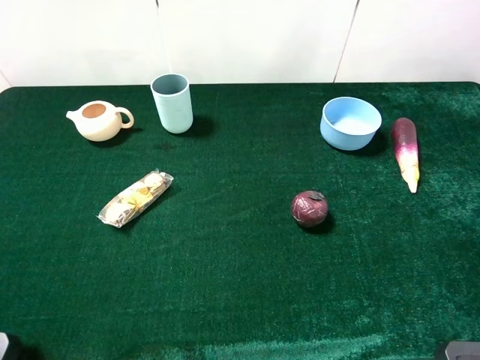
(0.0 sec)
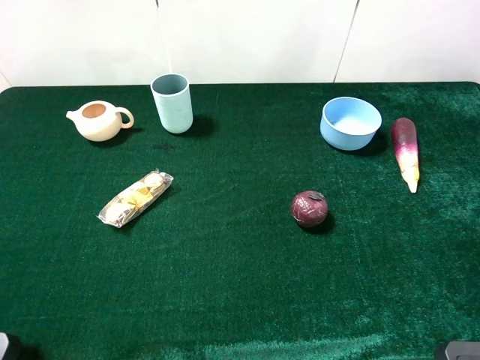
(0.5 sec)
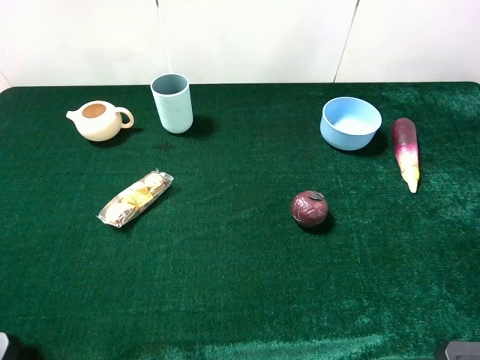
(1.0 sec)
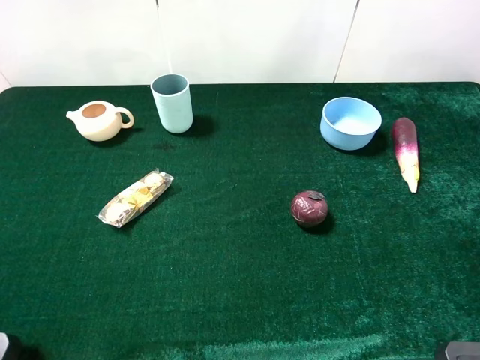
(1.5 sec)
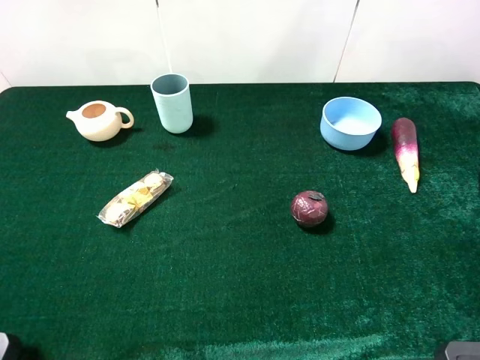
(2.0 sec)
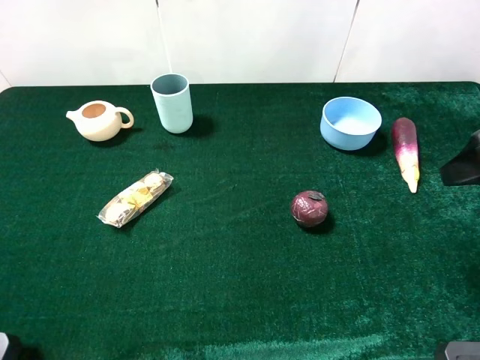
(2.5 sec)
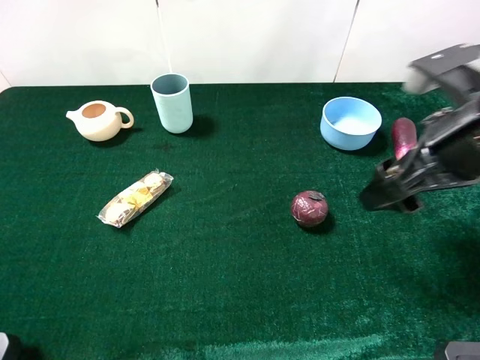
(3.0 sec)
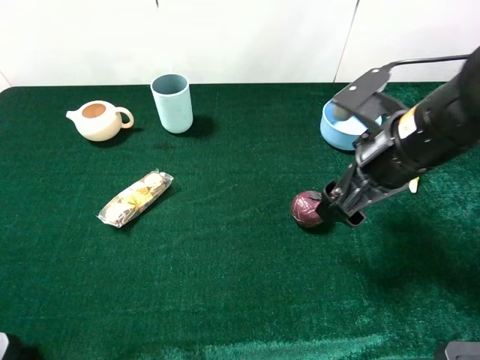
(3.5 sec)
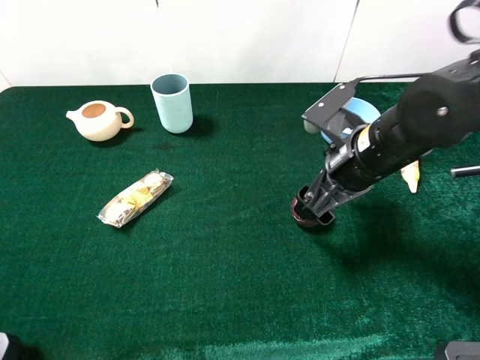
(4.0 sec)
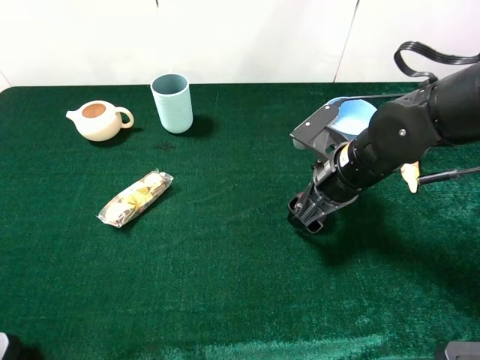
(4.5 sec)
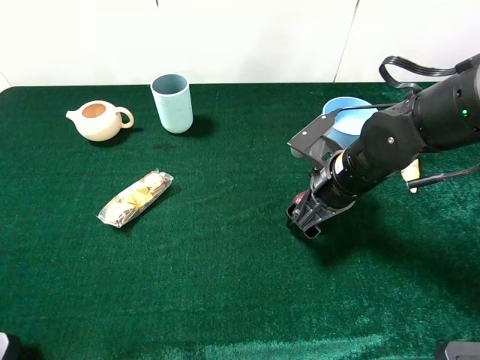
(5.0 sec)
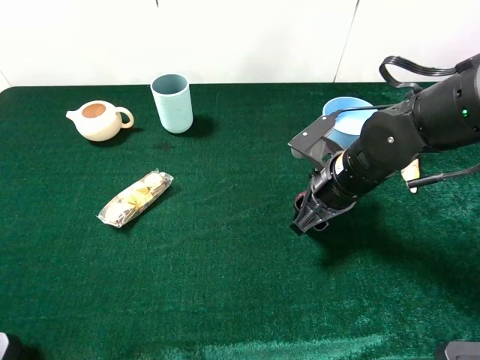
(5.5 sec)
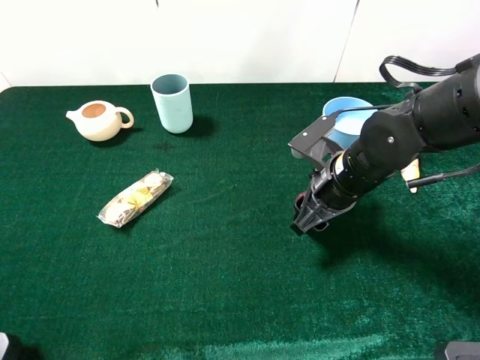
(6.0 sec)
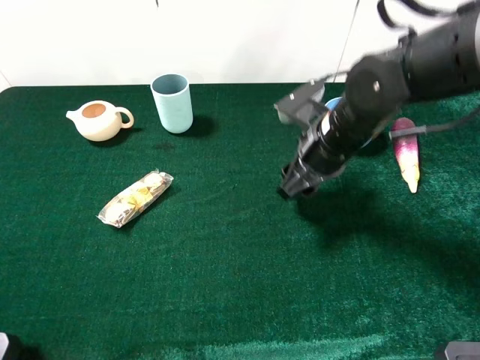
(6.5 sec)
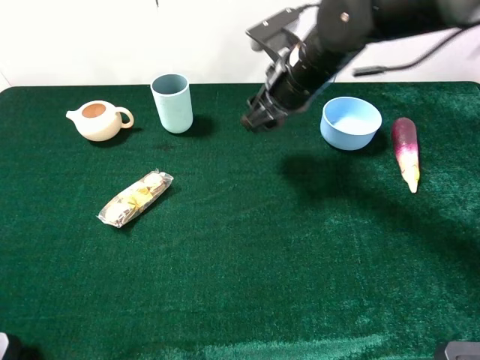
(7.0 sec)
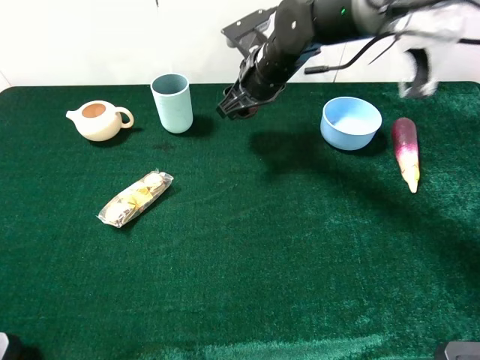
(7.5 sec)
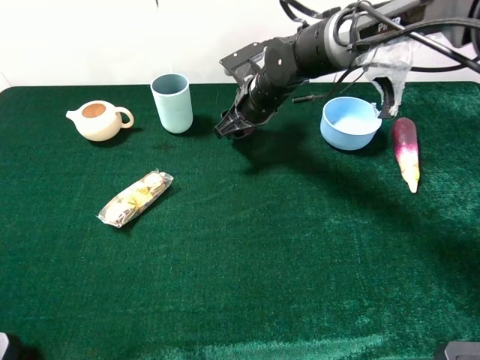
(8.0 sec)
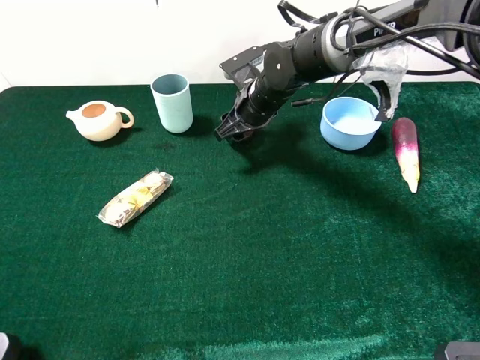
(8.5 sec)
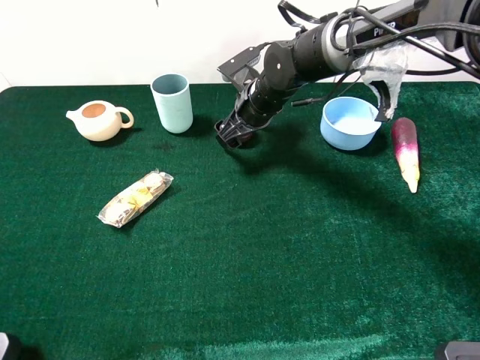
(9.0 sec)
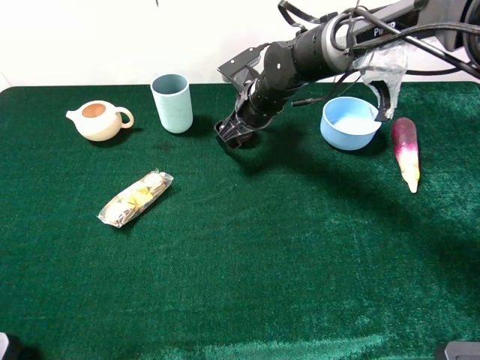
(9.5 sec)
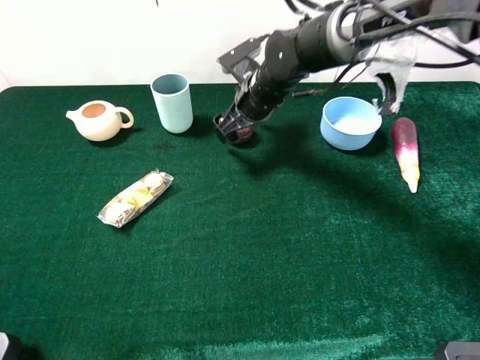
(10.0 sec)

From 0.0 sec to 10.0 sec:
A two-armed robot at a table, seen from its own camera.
Task of the whole recording: the gripper move the object.
Step, from 0.0 sec to 6.0 sec: Grasp the mangosteen with the right gripper.
From 2.0 sec to 4.0 sec: The right gripper goes some 25 cm downward, to the left and forward.
From 4.0 sec to 6.0 sec: The right gripper closes its fingers.
From 6.0 sec to 8.0 sec: The right gripper is displaced forward and to the left by roughly 20 cm.
From 8.0 sec to 10.0 sec: The right gripper opens.

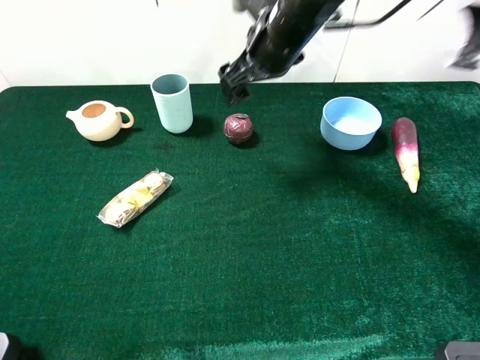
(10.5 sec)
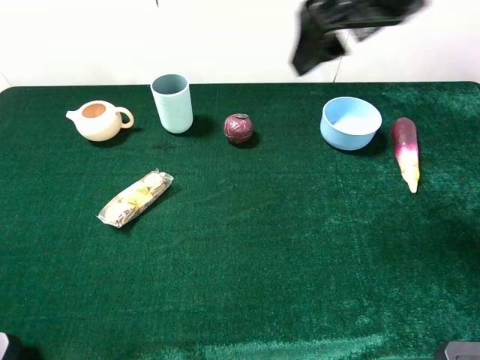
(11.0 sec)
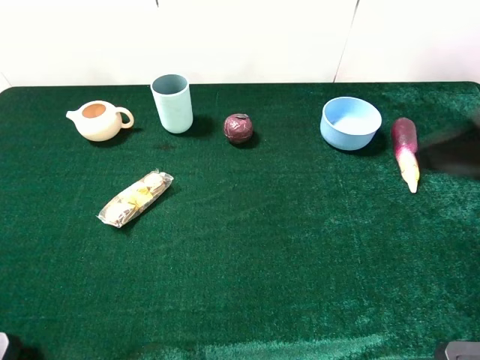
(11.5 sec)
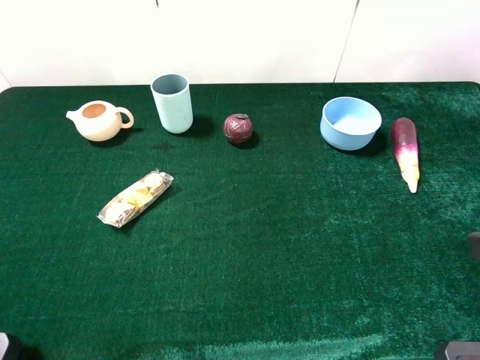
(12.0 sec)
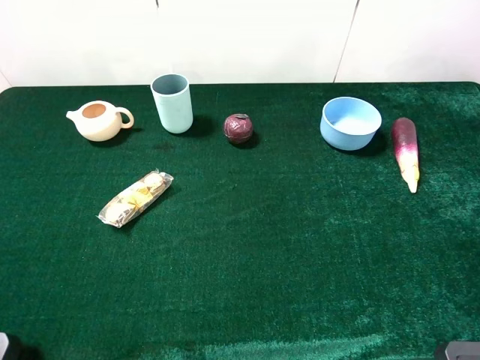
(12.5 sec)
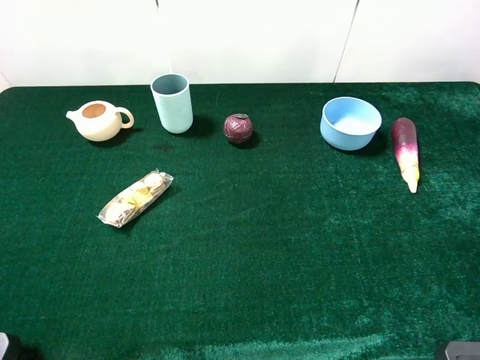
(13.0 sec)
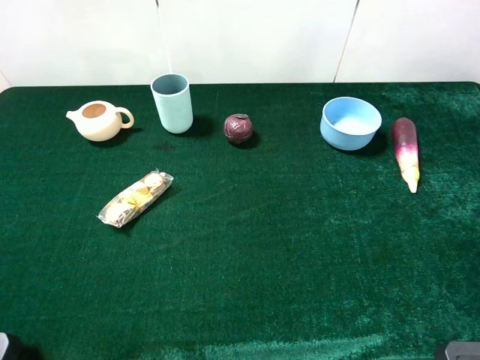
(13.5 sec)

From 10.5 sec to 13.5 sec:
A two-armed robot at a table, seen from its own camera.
Task of the whole recording: the gripper move the object.
From 10.5 sec to 12.0 sec: The right gripper heads backward and to the right, covering approximately 40 cm.
